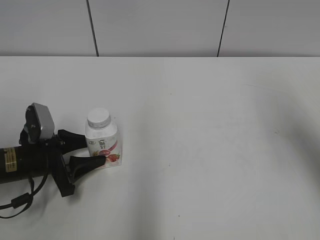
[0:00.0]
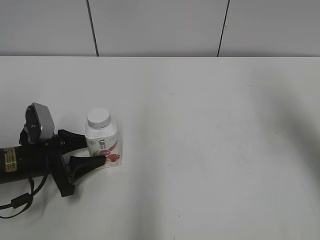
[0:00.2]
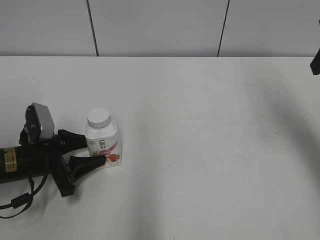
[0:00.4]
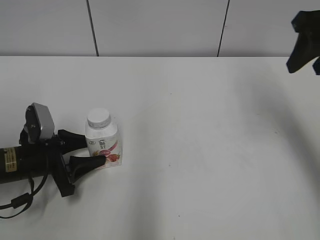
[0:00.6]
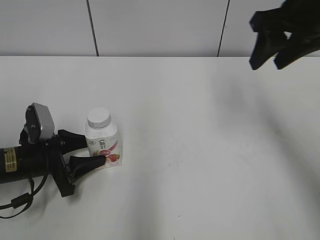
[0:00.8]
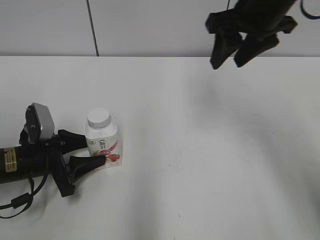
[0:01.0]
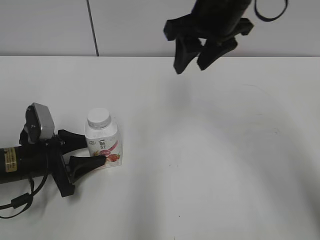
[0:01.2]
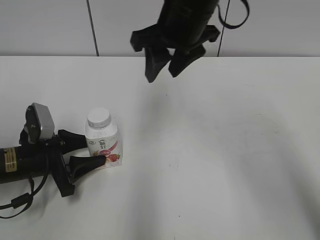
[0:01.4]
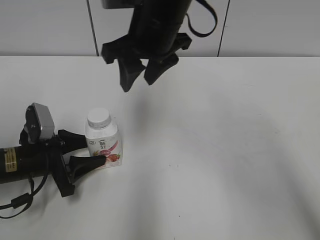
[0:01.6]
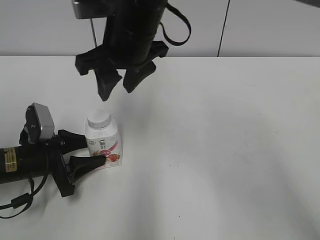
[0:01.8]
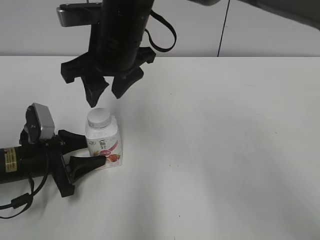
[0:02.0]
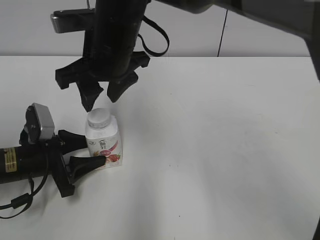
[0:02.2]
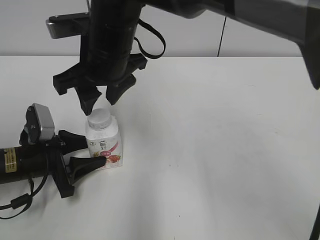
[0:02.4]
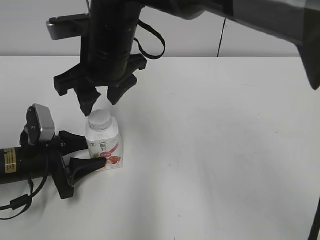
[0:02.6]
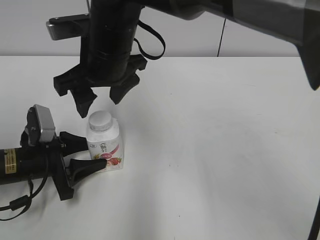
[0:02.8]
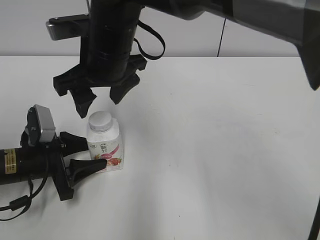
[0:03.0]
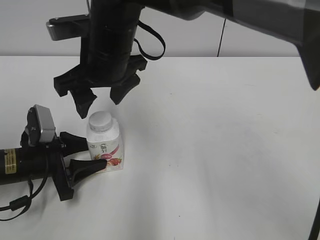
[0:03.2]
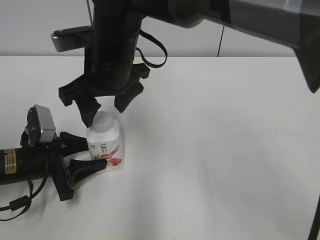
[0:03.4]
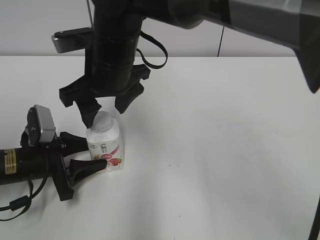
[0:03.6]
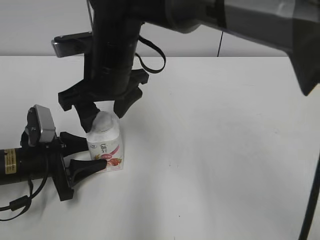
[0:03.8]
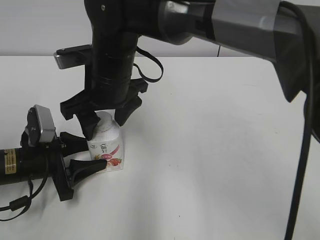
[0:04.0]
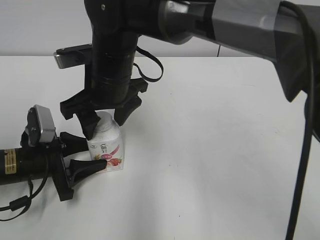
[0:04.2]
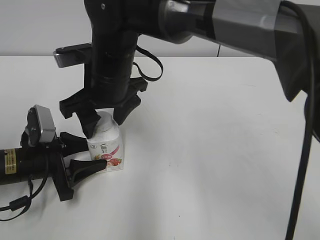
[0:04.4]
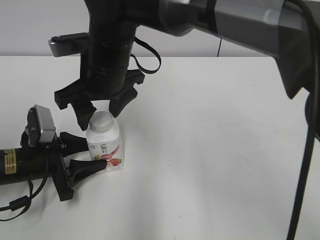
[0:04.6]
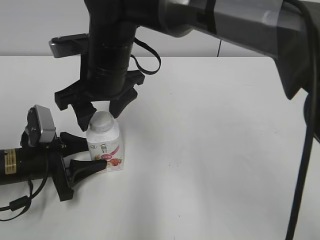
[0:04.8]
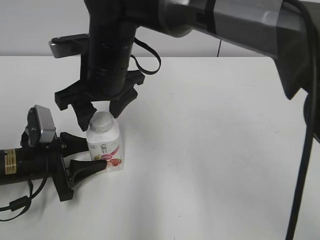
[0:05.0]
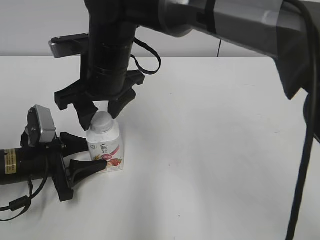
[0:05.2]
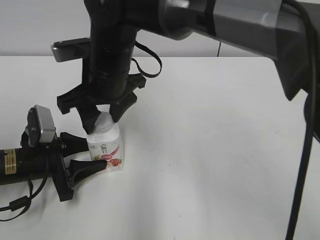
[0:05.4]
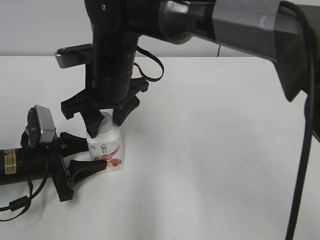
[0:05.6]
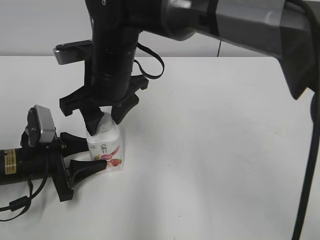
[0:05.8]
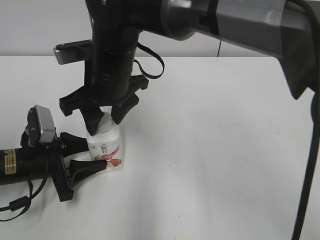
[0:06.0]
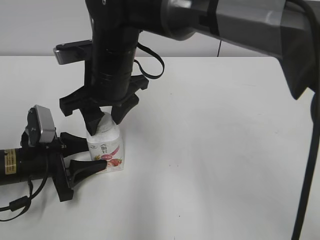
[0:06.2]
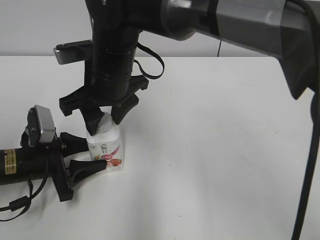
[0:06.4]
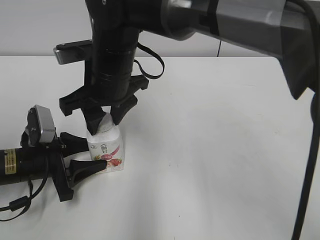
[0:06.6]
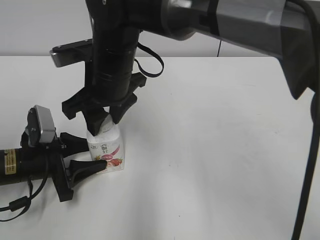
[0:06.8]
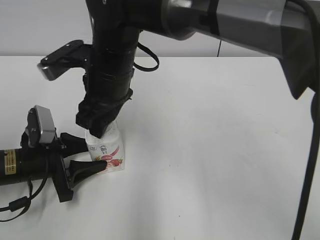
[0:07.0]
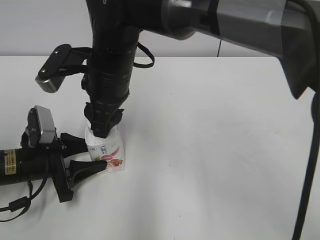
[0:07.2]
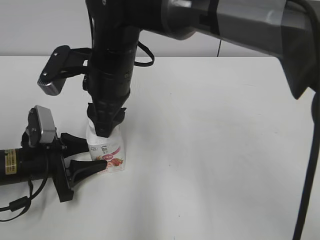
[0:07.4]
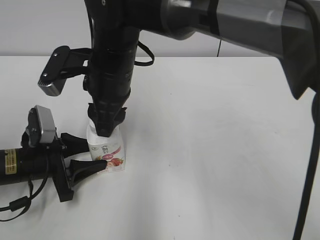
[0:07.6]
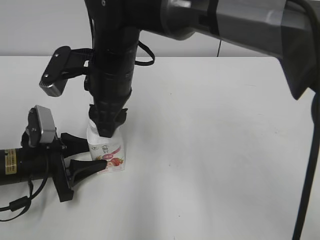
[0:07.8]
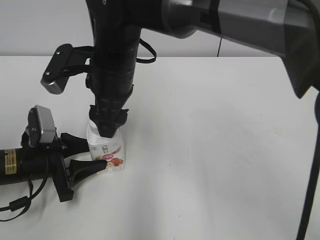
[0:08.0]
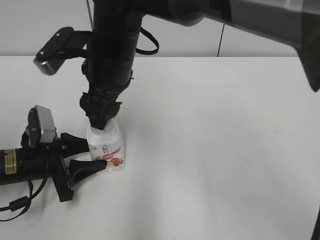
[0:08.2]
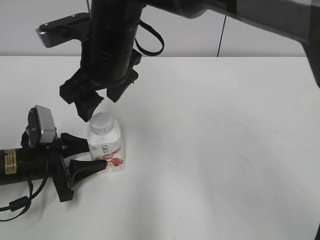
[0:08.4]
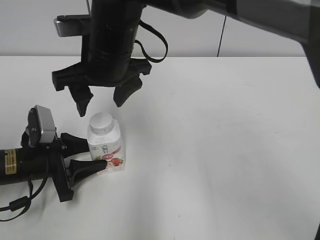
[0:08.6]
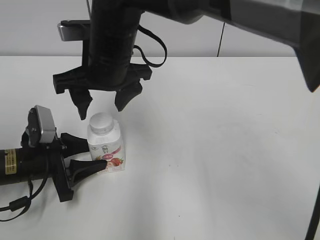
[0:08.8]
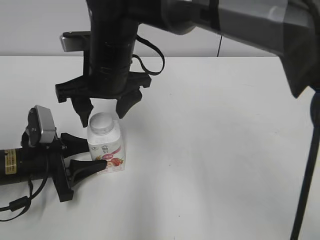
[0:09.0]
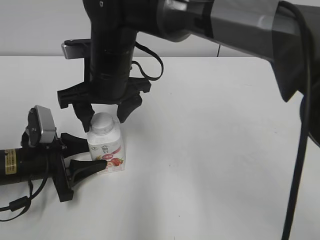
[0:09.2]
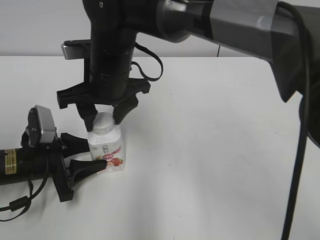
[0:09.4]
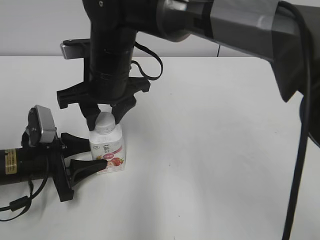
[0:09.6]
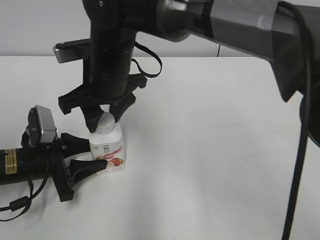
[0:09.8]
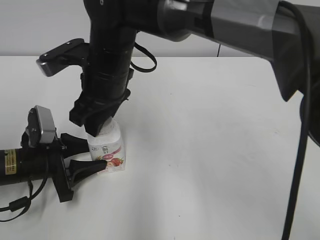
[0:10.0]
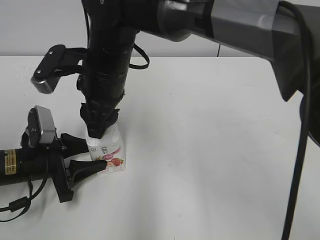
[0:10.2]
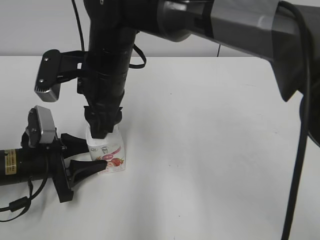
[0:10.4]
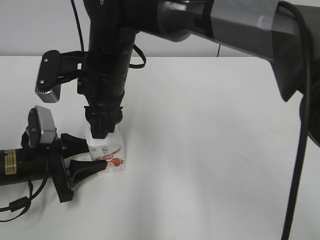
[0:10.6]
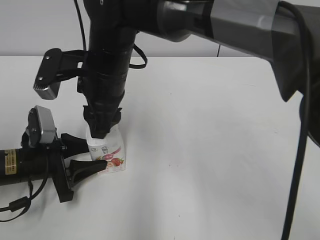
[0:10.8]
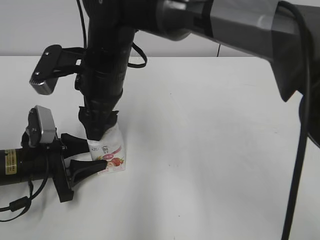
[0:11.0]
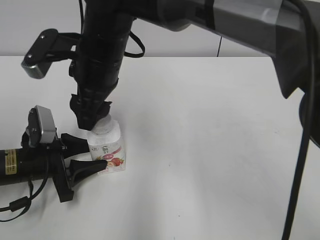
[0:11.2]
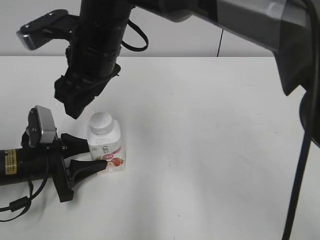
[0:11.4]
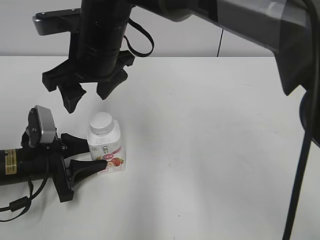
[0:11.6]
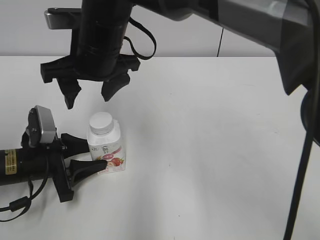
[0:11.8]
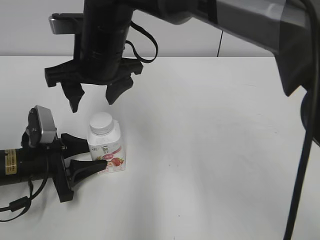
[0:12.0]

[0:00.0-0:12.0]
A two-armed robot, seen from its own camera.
0:00.0 to 0:01.6: The right gripper shifts about 30 cm to the left.
0:01.6 to 0:03.0: The right gripper travels to the left by approximately 5 cm, and opens.
0:04.4 to 0:06.0: The right gripper closes.
0:07.6 to 0:09.0: The right gripper opens up.
0:09.0 to 0:10.4: The right gripper closes its fingers.
0:10.4 to 0:12.0: The right gripper opens up.

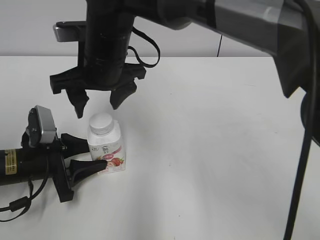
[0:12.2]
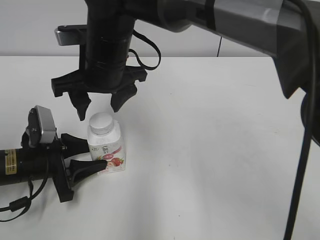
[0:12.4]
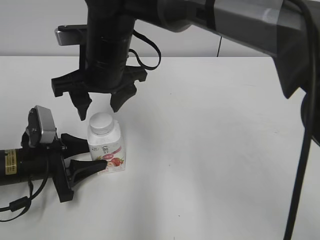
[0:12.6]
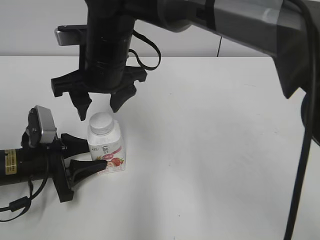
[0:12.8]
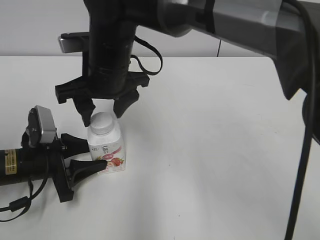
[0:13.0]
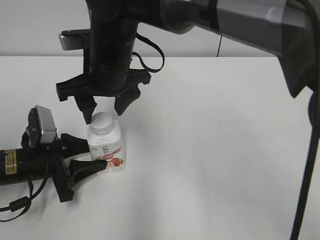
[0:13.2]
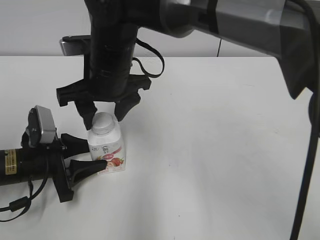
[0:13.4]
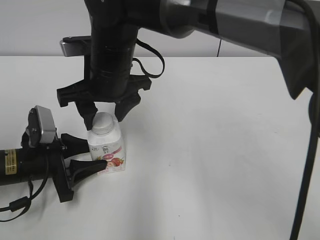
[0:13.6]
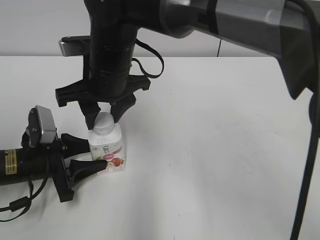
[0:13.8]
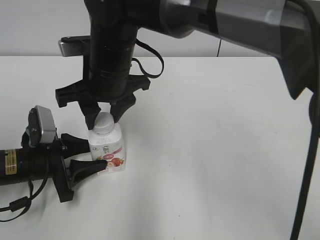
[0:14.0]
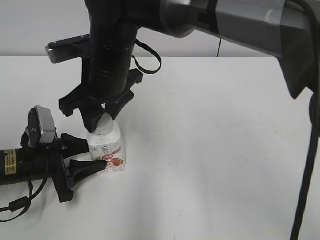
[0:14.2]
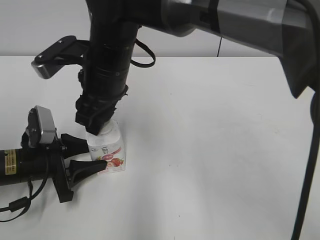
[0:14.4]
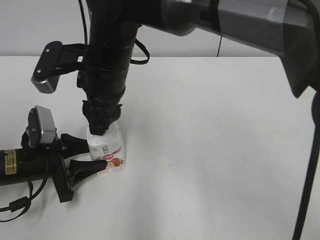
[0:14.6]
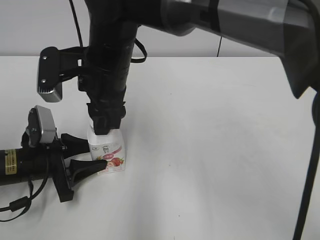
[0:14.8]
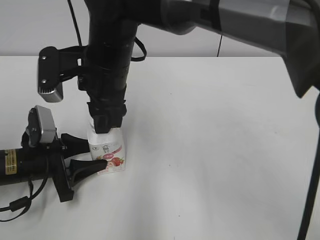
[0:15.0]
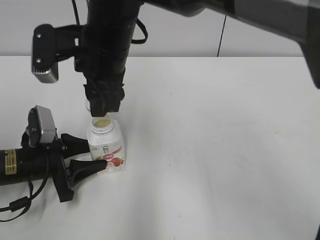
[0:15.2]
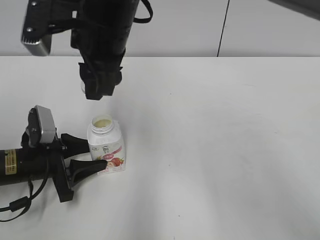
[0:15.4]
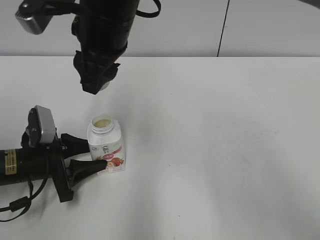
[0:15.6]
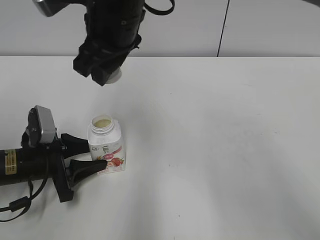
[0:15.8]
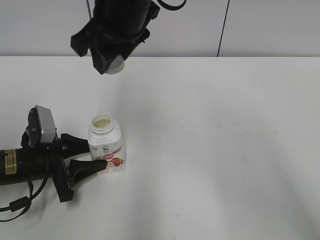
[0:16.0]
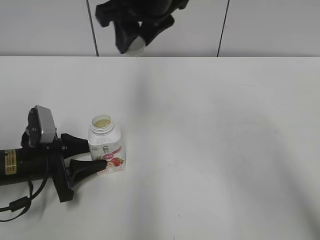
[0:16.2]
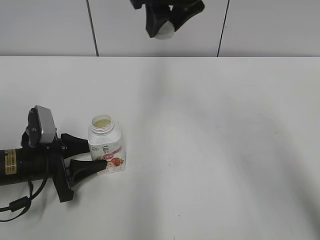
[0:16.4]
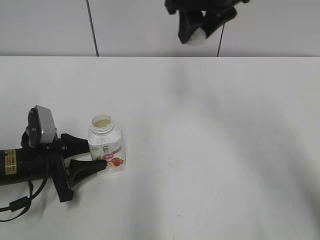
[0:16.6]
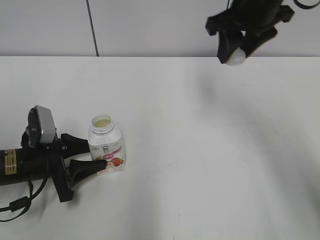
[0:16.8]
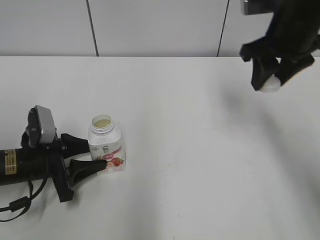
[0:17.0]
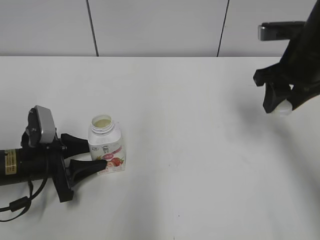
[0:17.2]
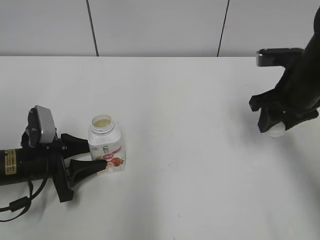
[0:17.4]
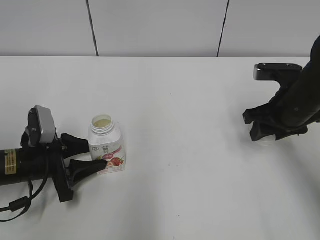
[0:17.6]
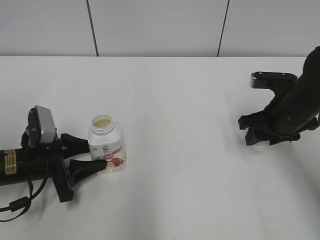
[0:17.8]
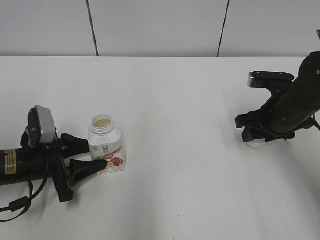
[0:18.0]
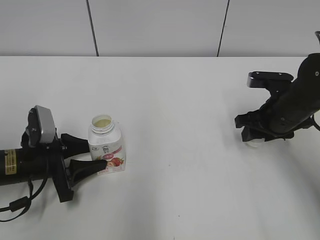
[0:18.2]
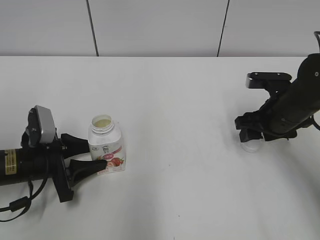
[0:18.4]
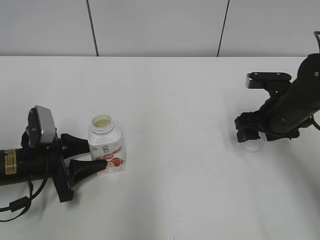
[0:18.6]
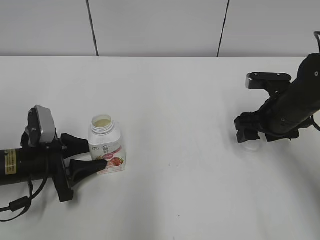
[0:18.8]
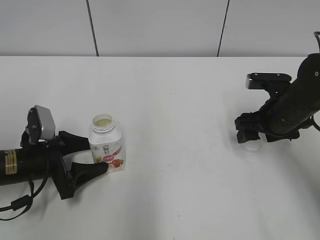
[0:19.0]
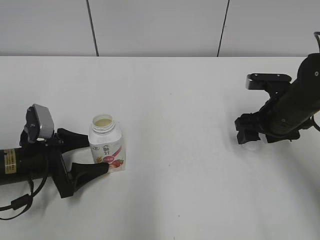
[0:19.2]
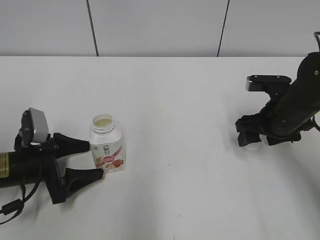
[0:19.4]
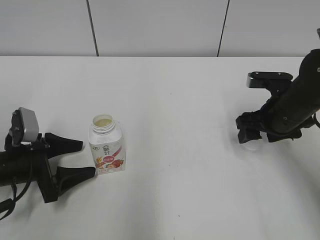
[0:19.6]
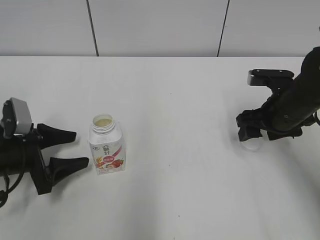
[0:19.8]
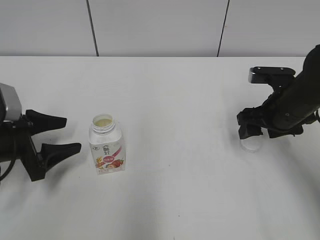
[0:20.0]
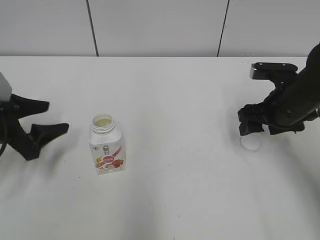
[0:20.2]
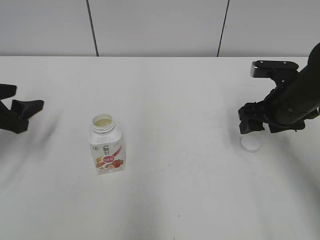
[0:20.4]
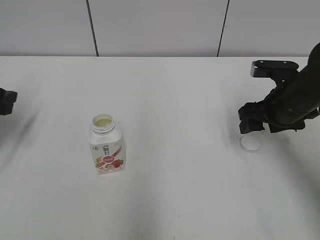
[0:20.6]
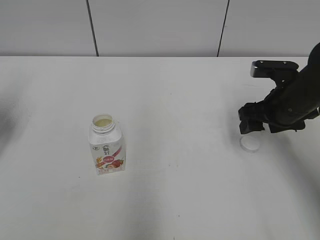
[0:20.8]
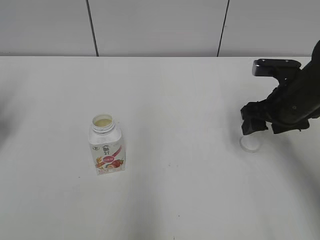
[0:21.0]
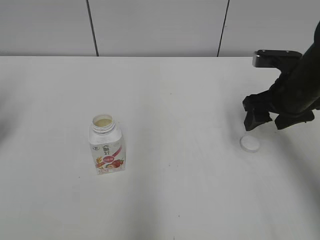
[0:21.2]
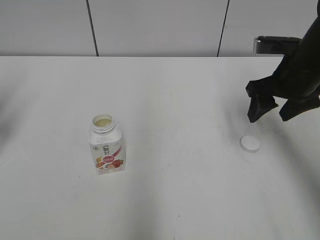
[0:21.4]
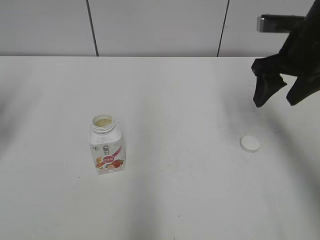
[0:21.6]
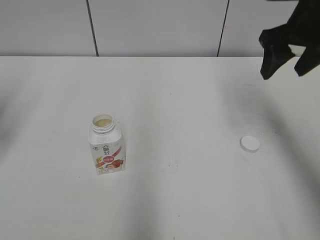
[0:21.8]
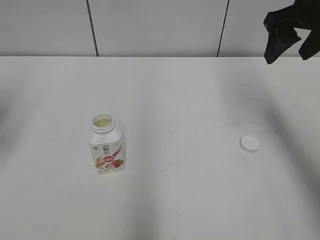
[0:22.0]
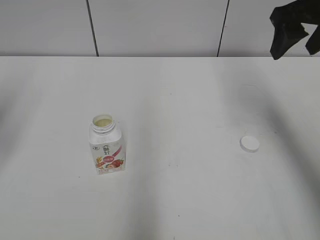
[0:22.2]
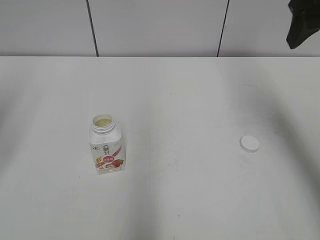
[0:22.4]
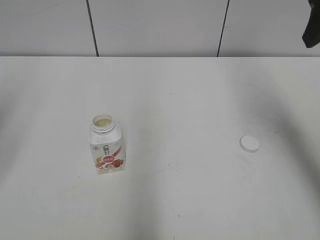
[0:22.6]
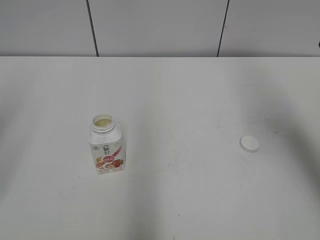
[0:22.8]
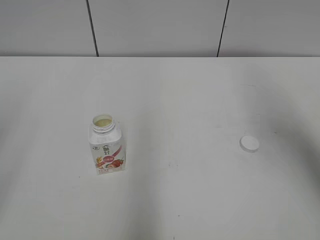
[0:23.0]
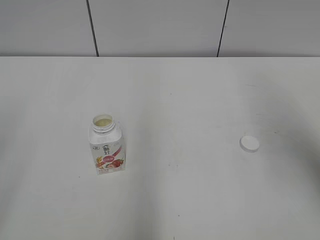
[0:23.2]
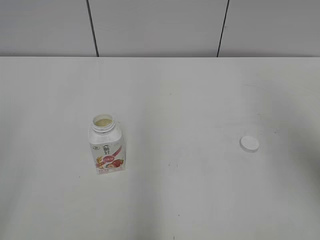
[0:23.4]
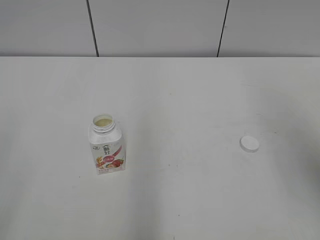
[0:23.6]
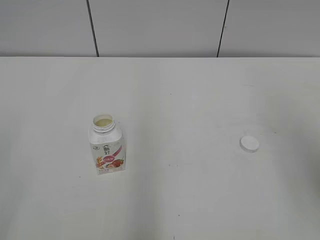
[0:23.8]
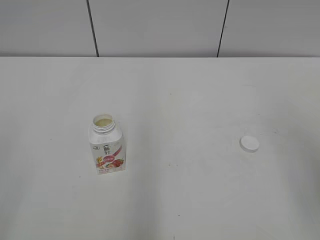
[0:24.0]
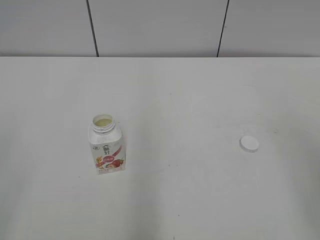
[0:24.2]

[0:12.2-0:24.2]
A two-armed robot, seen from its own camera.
Step, 0:15.0 to 0:18.6: Place the bottle cap on the right.
Step, 0:18.8 to 0:19.2: Place the Yili Changqing with the left hand.
0:12.2 to 0:13.8: The right gripper closes.
0:15.2 to 0:16.6: The right gripper is displaced to the right, upward and forward by approximately 20 cm.
0:16.6 to 0:18.2: The right gripper moves downward and to the right, roughly 25 cm.
0:18.2 to 0:19.8: The right gripper opens up. The left gripper opens its fingers.
0:19.8 to 0:21.2: The left gripper is displaced upward, to the left and forward by approximately 20 cm.
0:21.2 to 0:22.6: The right gripper goes approximately 20 cm upward.
0:22.6 to 0:24.2: The right gripper moves backward, some 20 cm.
